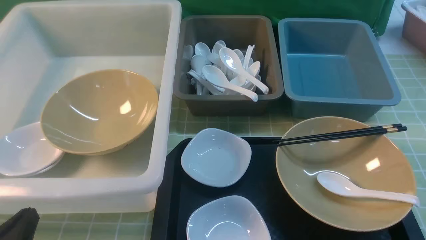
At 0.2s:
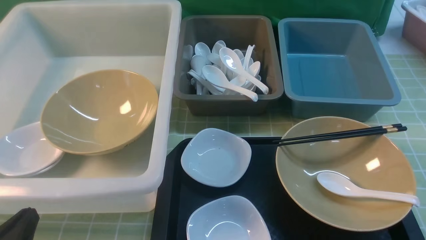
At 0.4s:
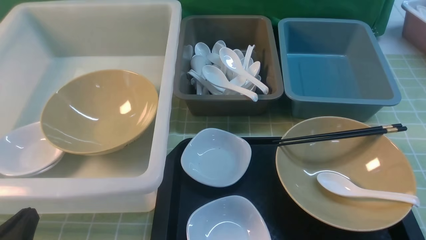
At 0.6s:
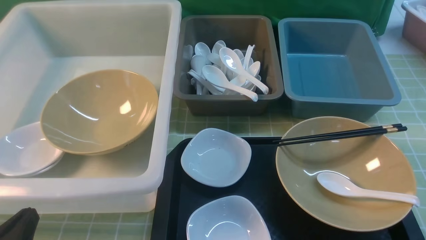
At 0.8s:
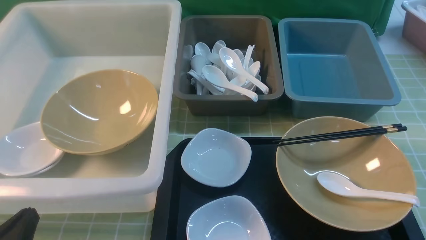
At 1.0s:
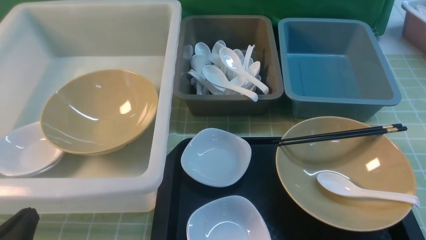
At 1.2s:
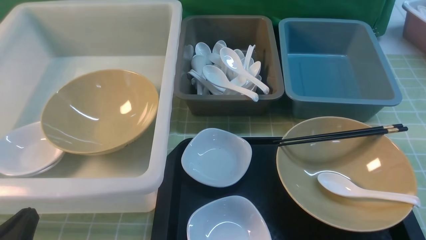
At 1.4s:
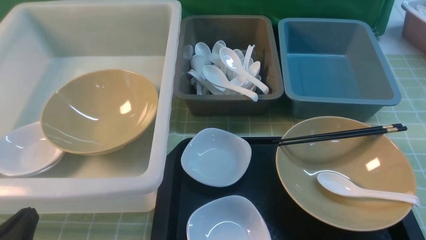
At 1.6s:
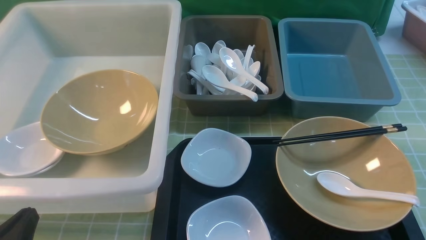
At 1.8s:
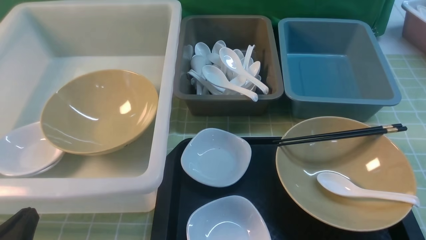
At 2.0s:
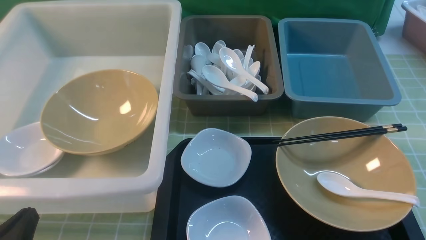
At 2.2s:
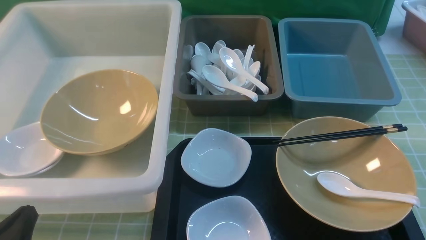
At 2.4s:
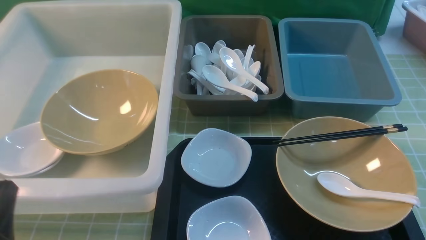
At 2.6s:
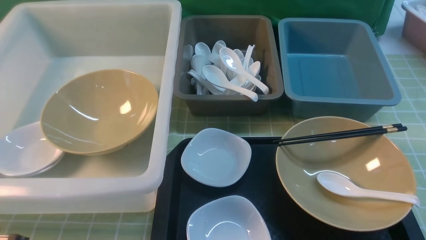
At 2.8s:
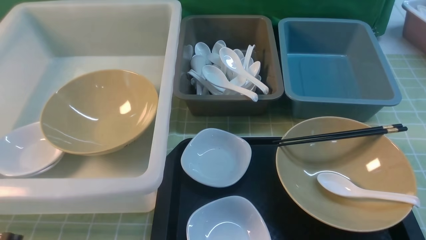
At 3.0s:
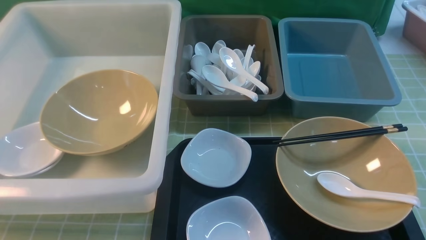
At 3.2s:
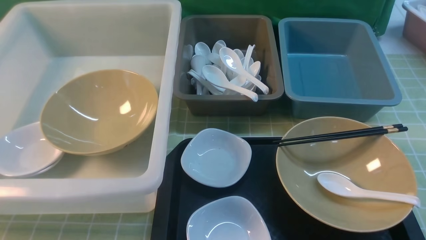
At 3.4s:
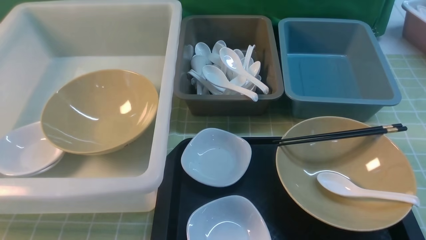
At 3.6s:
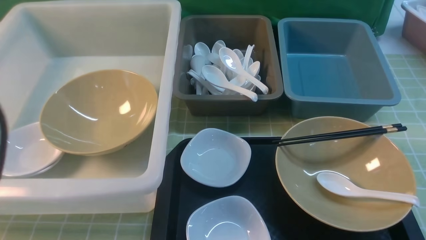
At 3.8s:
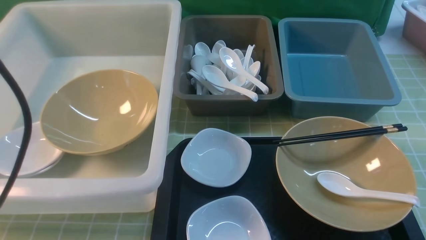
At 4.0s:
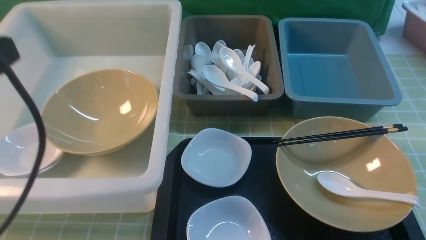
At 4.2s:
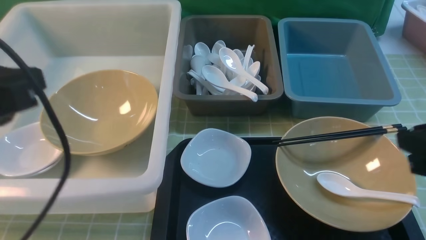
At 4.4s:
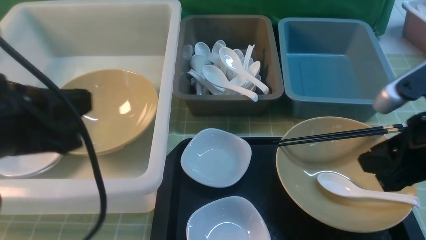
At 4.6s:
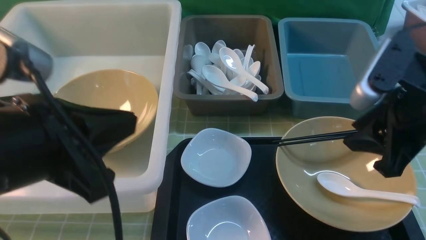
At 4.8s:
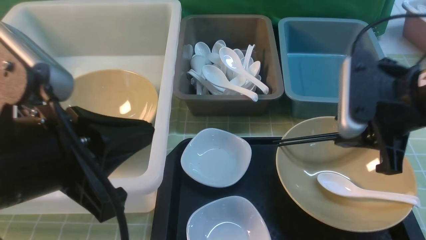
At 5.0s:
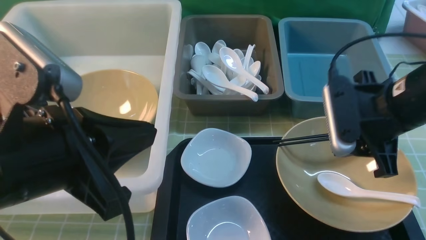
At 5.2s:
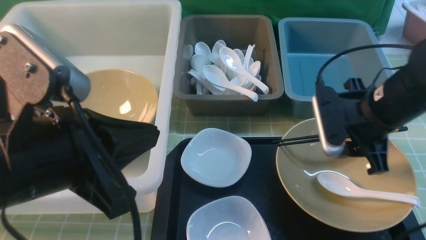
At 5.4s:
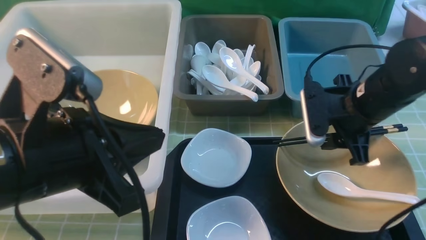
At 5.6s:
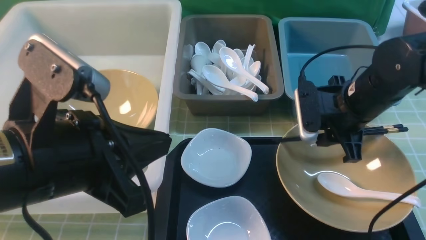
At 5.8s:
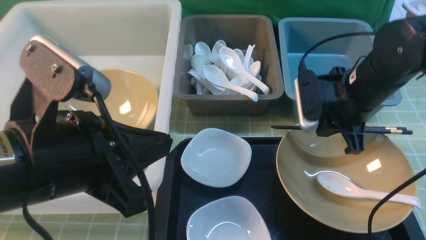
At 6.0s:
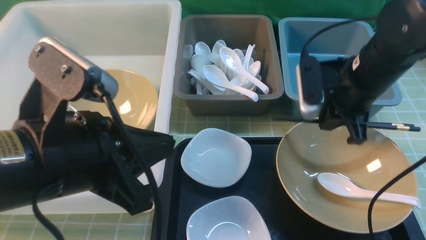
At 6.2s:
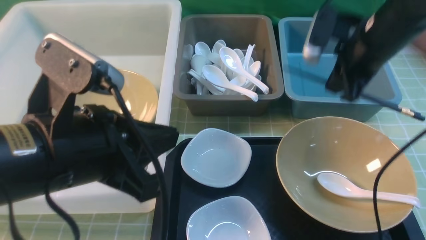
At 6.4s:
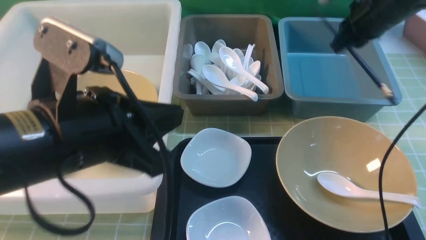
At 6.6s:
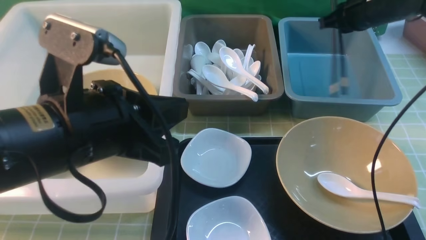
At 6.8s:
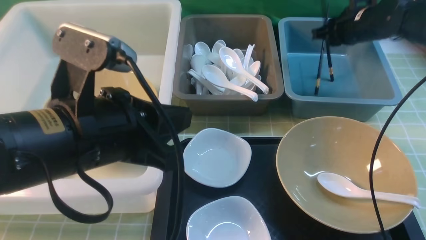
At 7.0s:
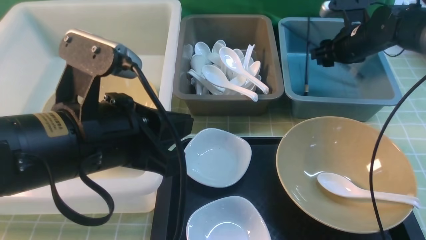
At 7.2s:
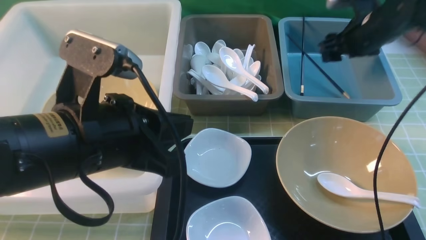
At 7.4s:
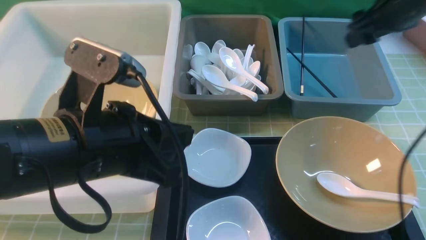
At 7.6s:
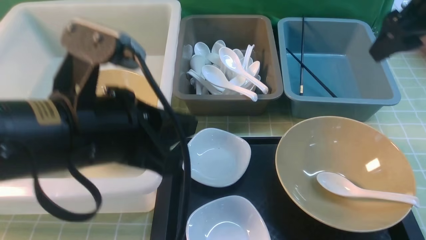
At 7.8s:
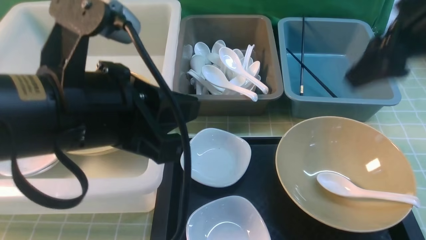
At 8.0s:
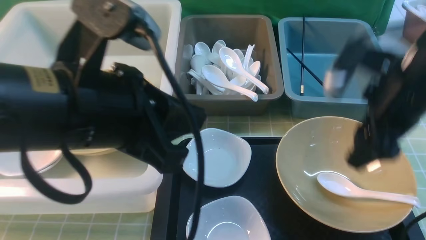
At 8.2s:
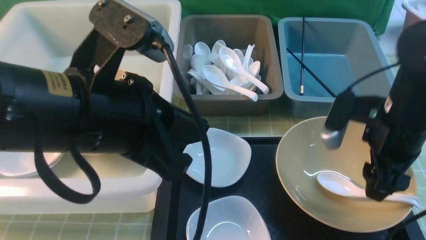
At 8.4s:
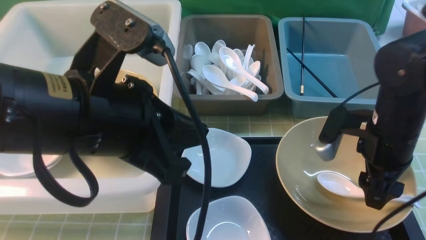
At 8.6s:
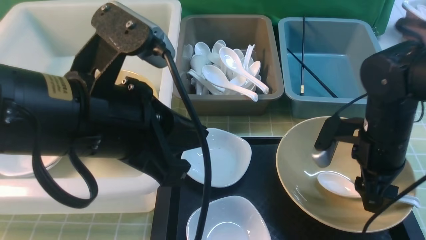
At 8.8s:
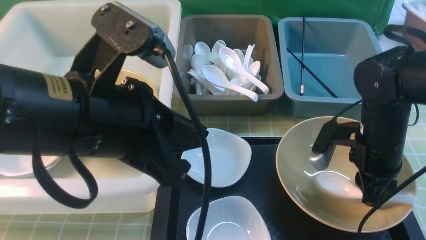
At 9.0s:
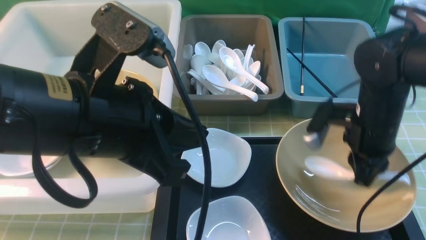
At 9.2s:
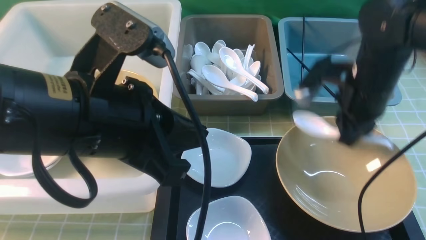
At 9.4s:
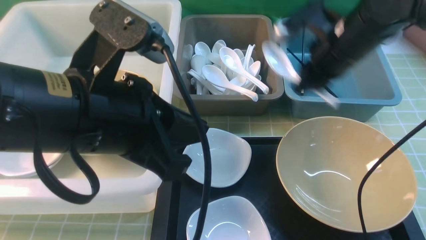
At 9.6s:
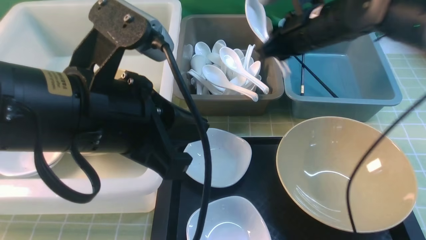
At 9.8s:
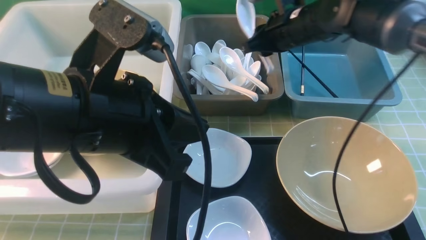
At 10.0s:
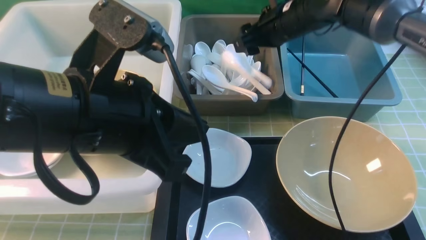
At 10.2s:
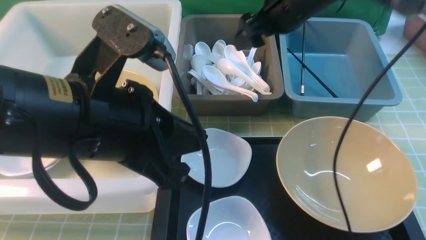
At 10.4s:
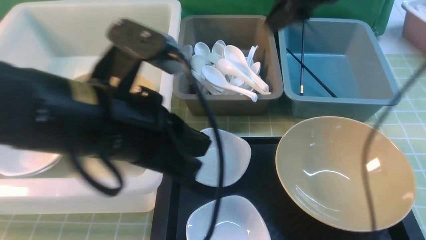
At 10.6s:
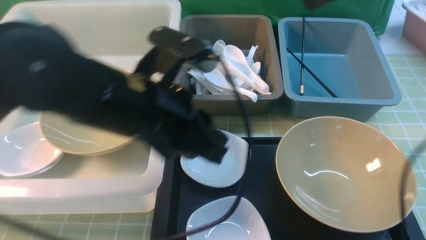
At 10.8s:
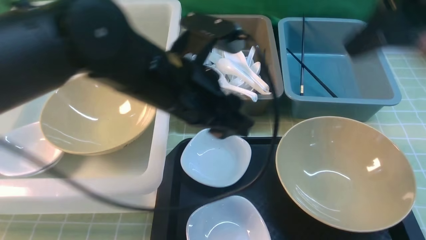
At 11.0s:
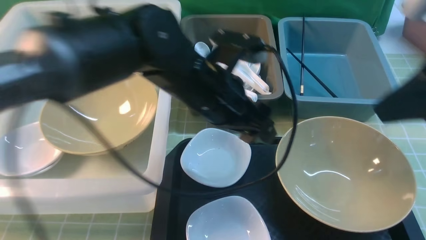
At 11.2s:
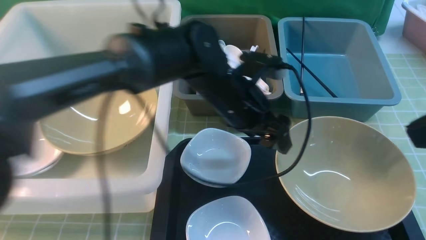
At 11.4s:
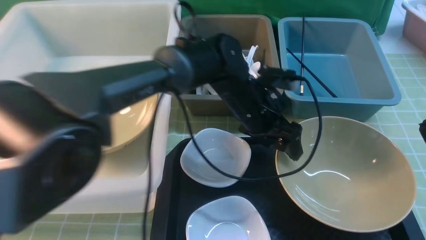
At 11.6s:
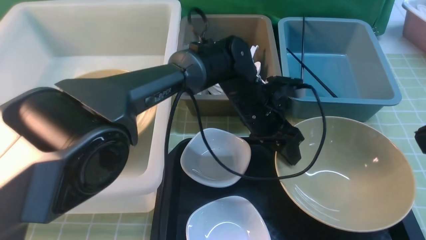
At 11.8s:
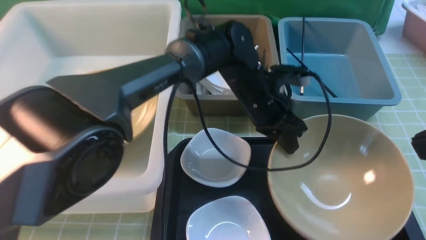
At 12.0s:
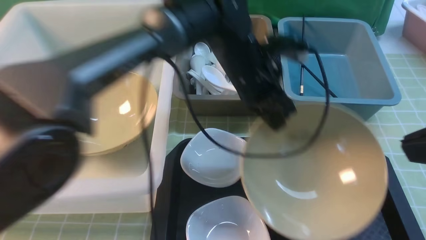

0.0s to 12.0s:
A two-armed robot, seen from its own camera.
Task of the whole recording: on green table put chopsticks spoon bowls plates into blue grey white boxes.
Step, 0.0s to 6.0s: use the right arm to grab the chopsticks.
Step, 6.4s to 7.2s: use the right arm to put the chopsticks into the small storage box on the right.
Step, 7.4s to 8.8s: use the right arm to grab the soup spoon in the middle.
Step, 9.0s to 10.4s: use the right arm to put the soup spoon into the small storage box in the middle.
Step, 10.6s to 12.0s: use the left arm to grab the yellow noodle bowl on the left.
0.0s to 1.6s: Neither gripper changes place.
1.6s to 3.0s: The left gripper heads upward, covering approximately 5 cm.
3.0s to 4.4s: The left gripper moves upward, forward and to the right, some 15 cm. Meanwhile the right gripper moves forward, upward and to the left, roughly 20 cm.
4.4s to 6.0s: The left gripper travels to the right by roughly 5 cm, while the right gripper travels forward by about 15 cm.
6.0s to 7.6s: The right gripper travels upward and to the right by roughly 10 cm, travels forward and back again, roughly 15 cm each way, and opens up.
7.6s to 9.0s: The right gripper moves downward, some 15 cm, and closes up.
9.0s to 10.4s: The right gripper shifts about 20 cm upward, and opens its fingers.
10.4s to 12.0s: The left gripper goes approximately 20 cm forward and to the right, and opens, then closes again. Meanwhile the right gripper moves backward, approximately 25 cm, and closes up.

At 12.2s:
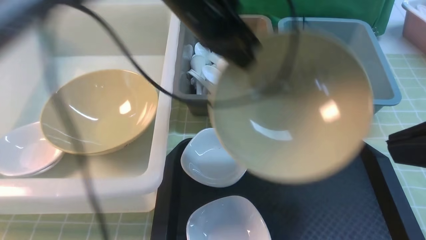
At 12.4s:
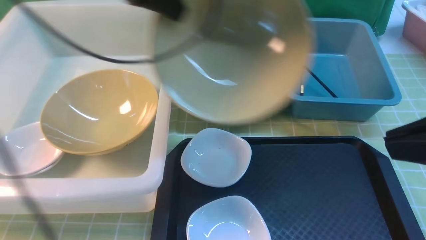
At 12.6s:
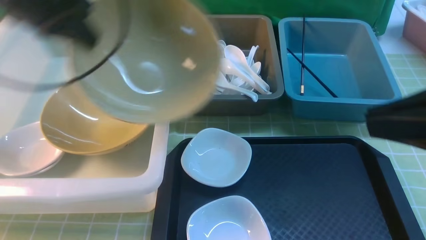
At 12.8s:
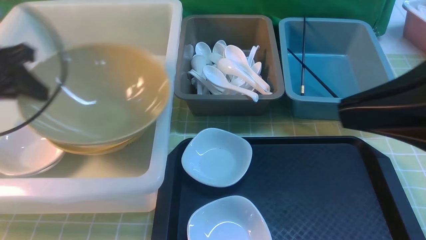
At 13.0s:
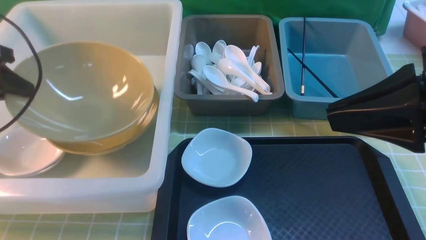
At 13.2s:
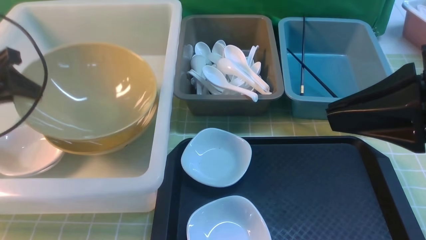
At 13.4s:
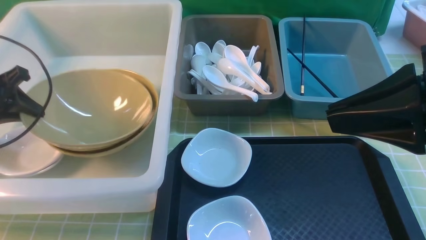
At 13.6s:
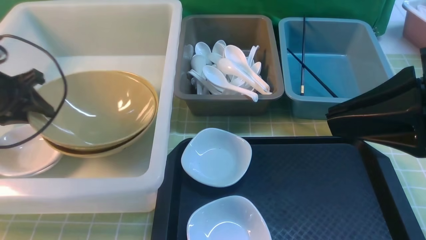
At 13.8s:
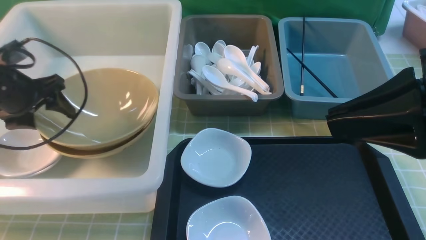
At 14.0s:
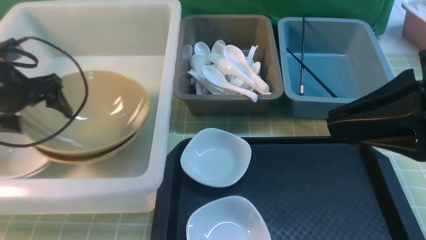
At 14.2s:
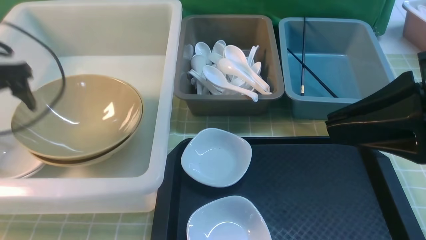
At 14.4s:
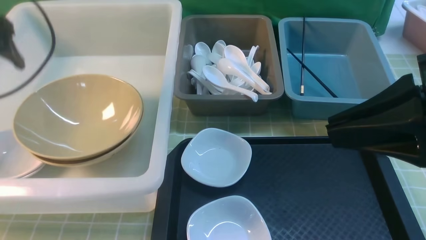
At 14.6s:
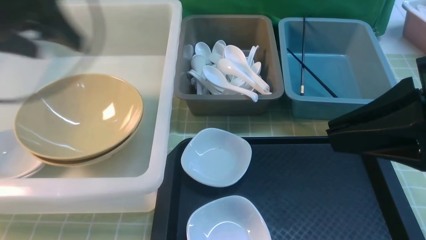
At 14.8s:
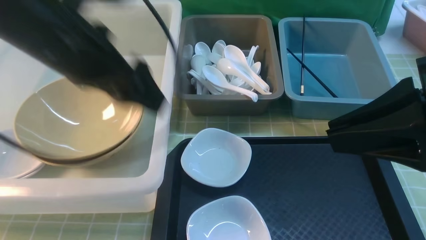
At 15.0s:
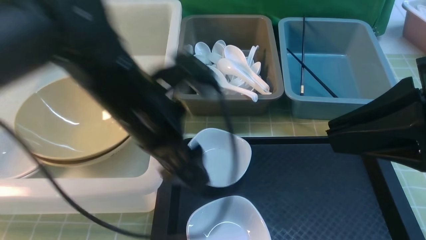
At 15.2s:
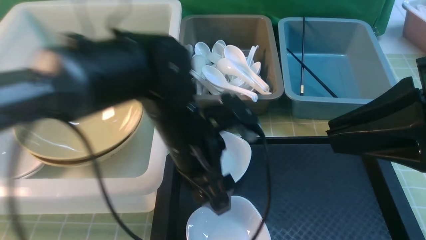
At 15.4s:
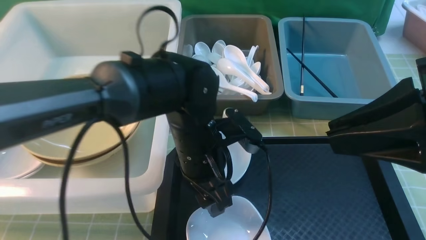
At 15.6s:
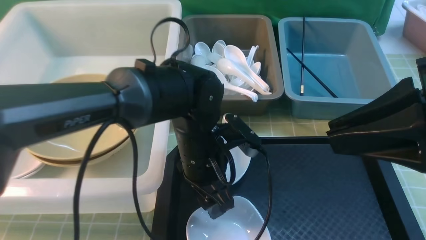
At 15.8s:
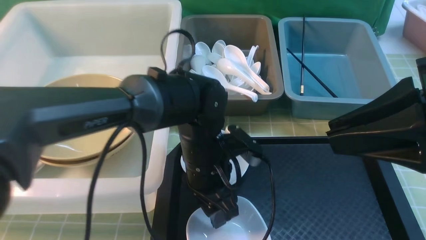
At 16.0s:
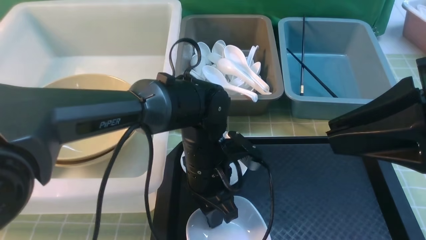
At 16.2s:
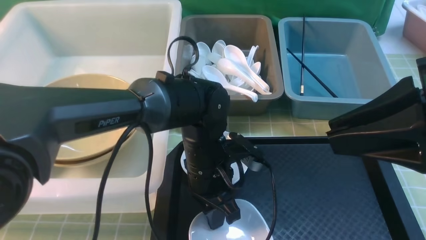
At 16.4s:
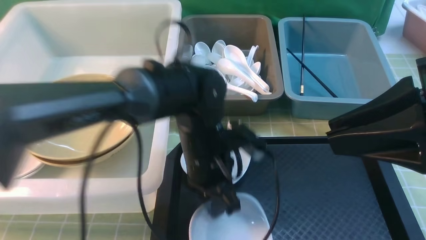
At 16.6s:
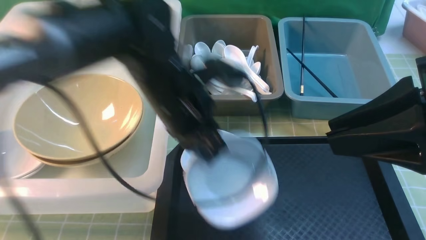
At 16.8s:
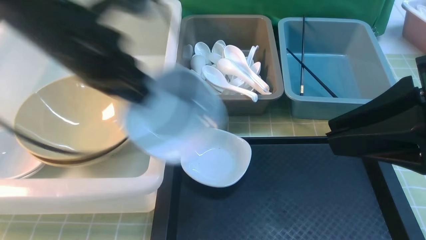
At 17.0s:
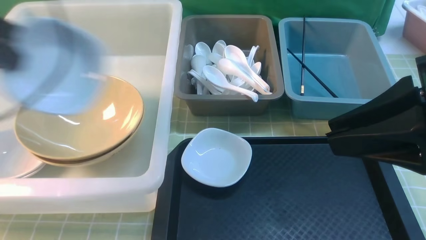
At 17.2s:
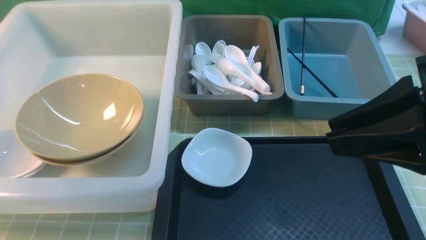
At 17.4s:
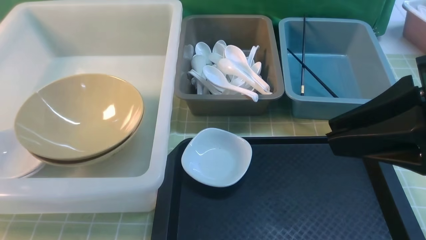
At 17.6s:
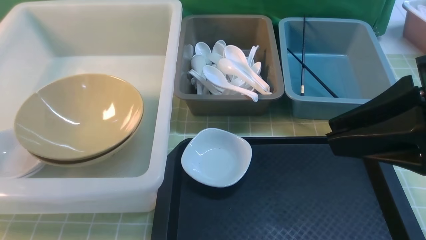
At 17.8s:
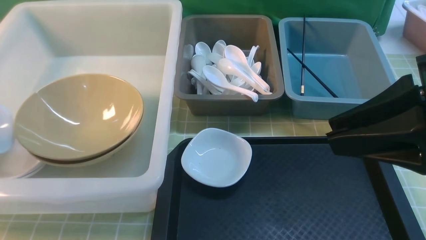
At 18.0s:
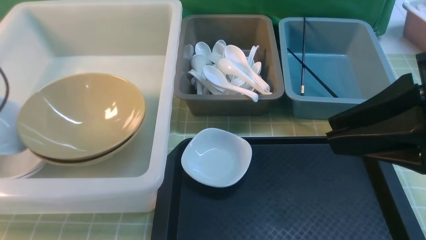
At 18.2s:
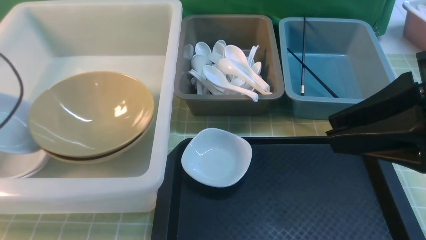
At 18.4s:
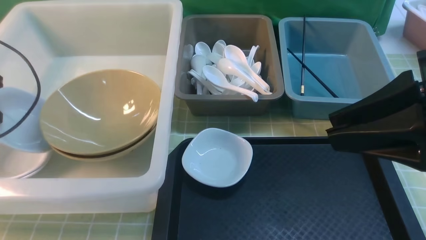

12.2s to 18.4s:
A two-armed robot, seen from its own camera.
Task of the whole recording: on green table put chopsticks spoon bowls plates into blue grey white boxes.
Step, 12.2s to 14.6s: use the left arm to put the noodle bowl into the large storage box on the left.
Step, 14.8s to 16.6s: use the left arm to grab the plate.
12.2s to 13.8s: The left gripper travels to the left and downward by approximately 30 cm, and opens.
13.8s to 15.4s: The left gripper moves to the right, roughly 30 cm.
15.4s to 16.8s: The left gripper moves to the left and upward, roughly 25 cm, and closes.
16.8s to 18.4s: The left gripper shifts some 20 cm to the left and downward.
